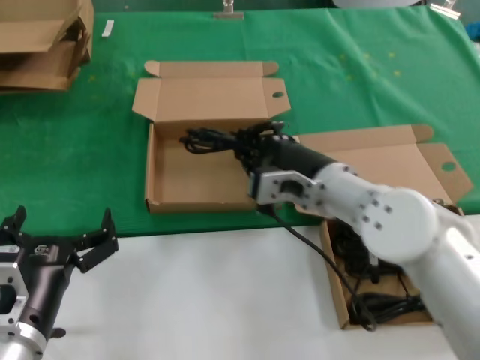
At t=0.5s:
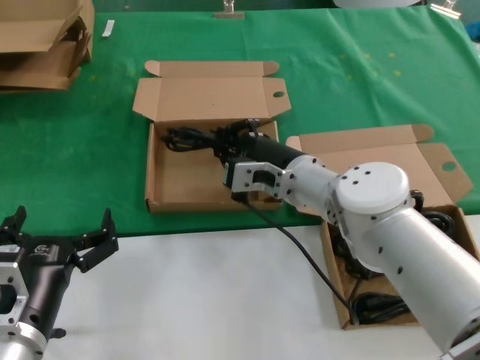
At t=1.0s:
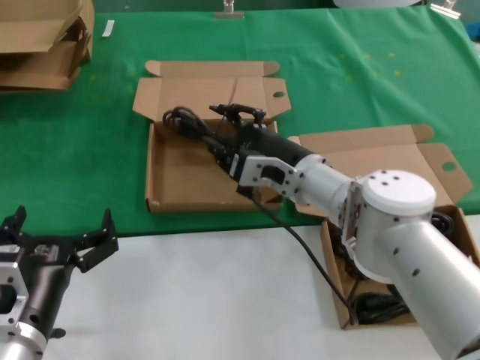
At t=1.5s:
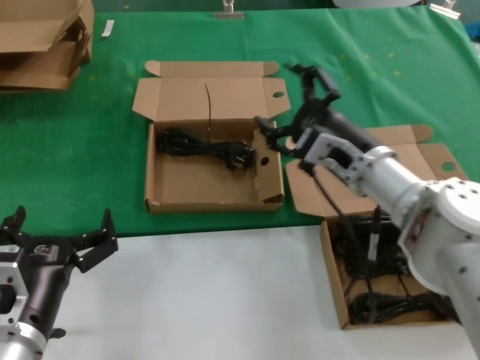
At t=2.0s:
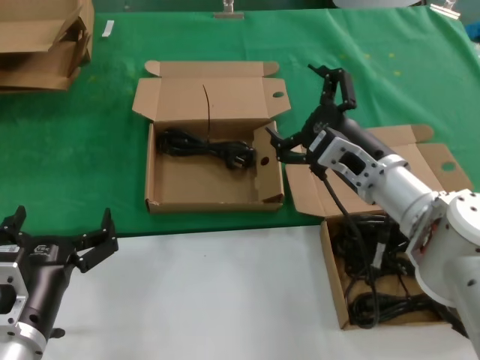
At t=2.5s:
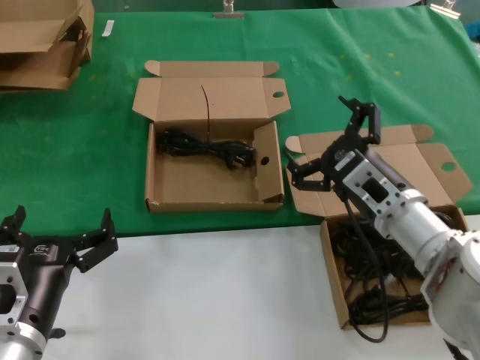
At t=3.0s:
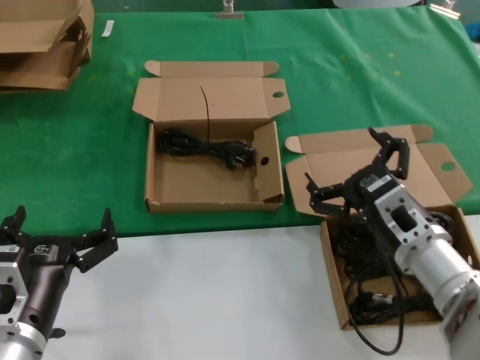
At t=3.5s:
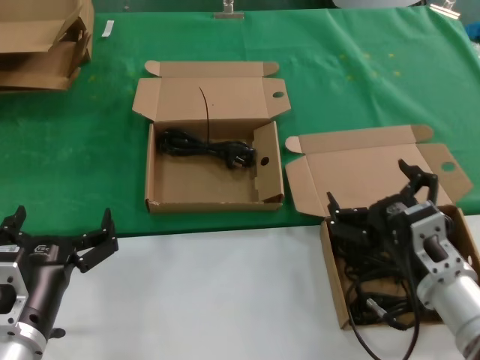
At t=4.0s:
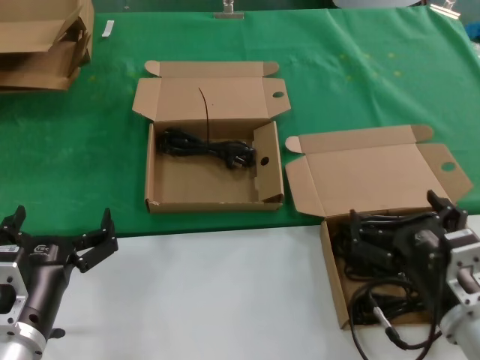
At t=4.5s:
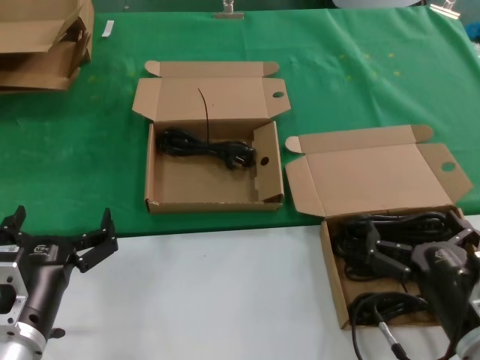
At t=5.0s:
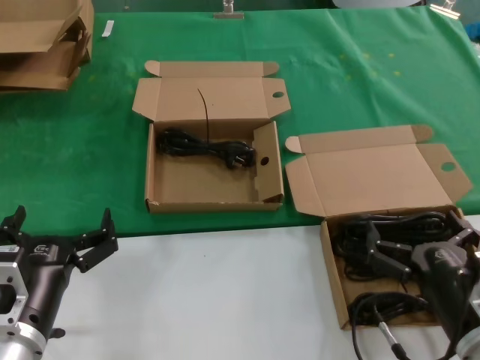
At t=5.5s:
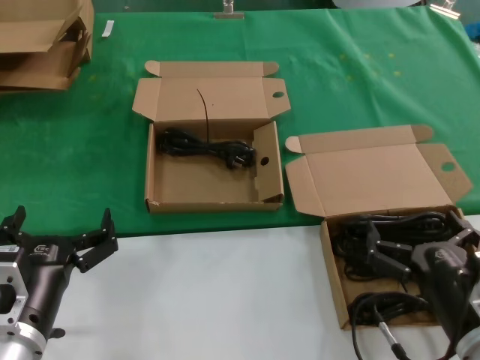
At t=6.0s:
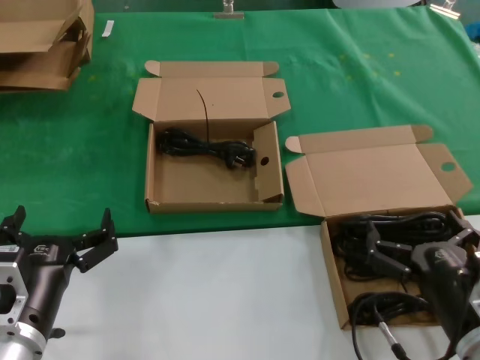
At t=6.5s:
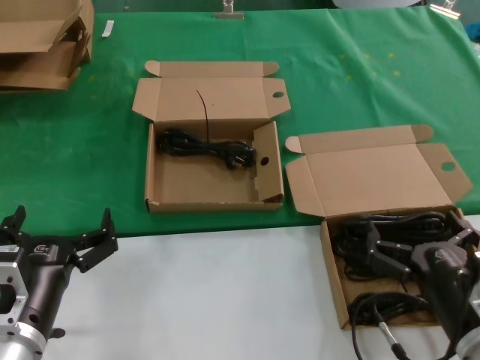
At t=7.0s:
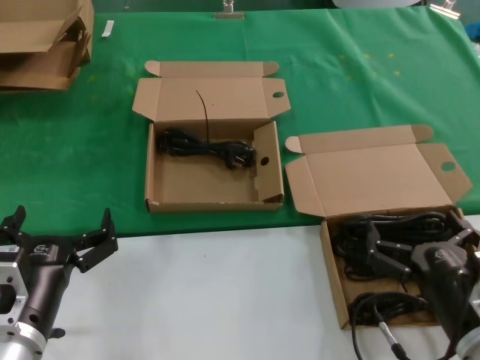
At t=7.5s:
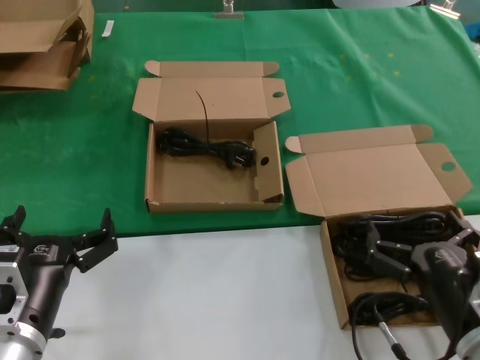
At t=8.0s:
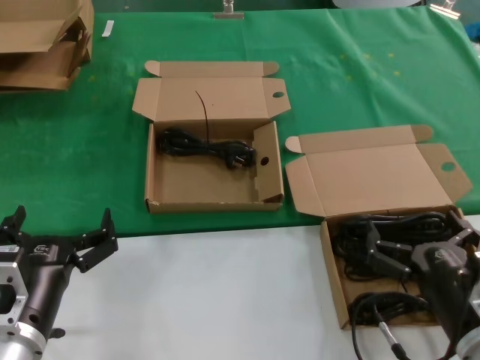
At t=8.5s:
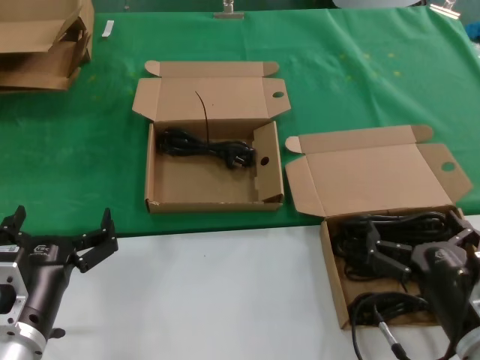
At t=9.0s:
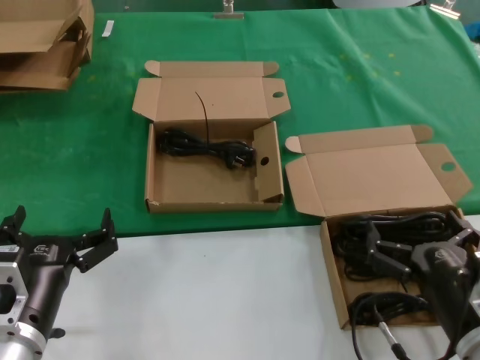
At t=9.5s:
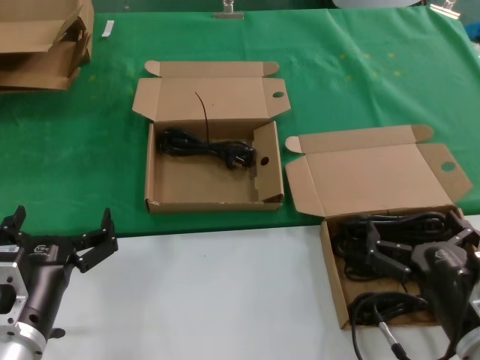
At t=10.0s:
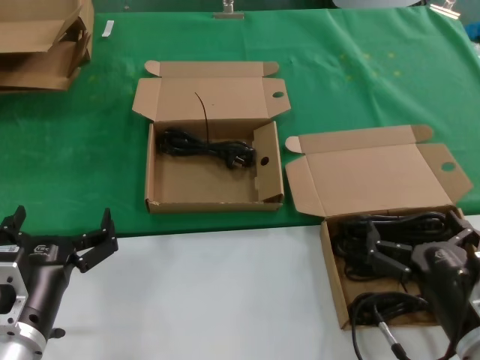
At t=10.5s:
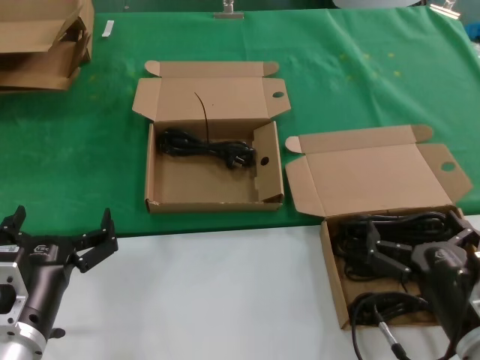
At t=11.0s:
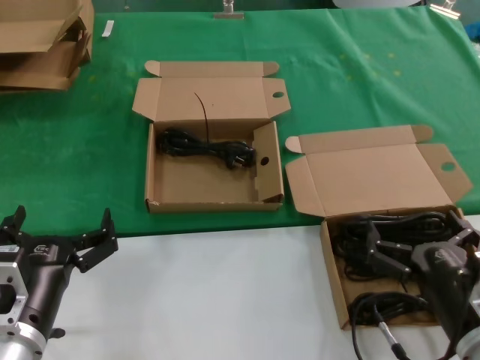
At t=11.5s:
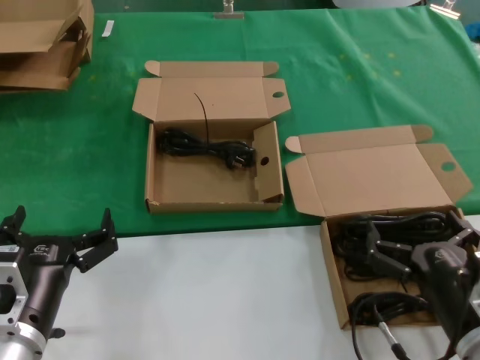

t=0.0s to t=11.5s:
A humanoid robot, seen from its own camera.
Task of the whole recording: take the parts from the box containing them and put them into an empty box.
t=0.0s to t=2.0s: The right hand goes approximately 5 cm to the right.
t=2.0s to t=4.0s: The right hand travels backward and downward by some 20 cm.
t=4.0s to t=6.0s: The hands move only a little.
t=6.0s to t=11.5s: Both hands stay put.

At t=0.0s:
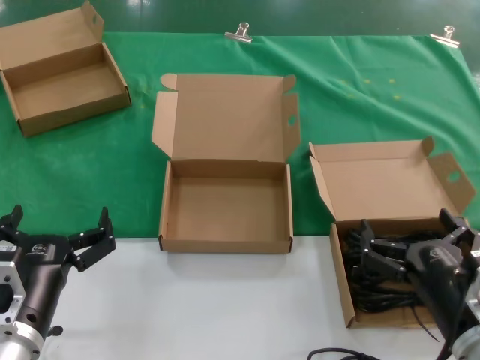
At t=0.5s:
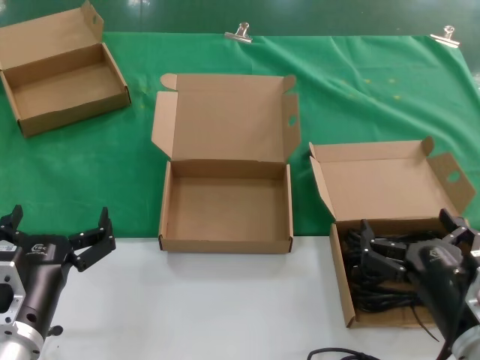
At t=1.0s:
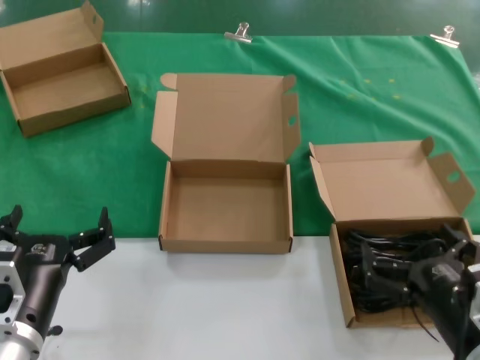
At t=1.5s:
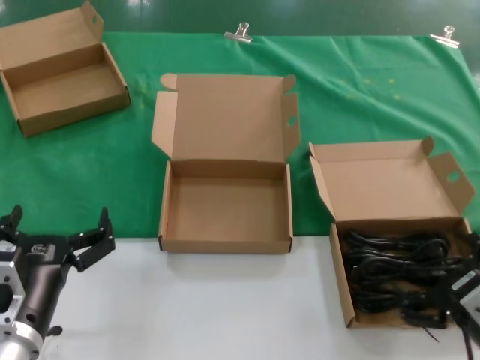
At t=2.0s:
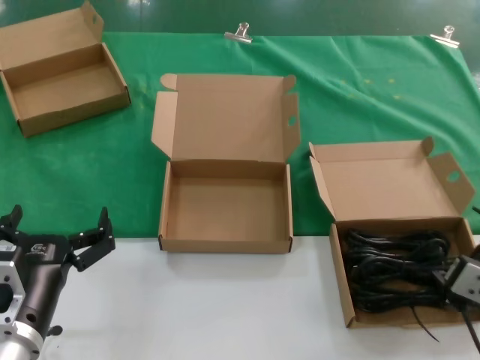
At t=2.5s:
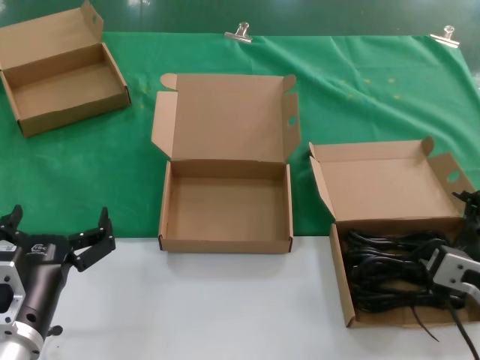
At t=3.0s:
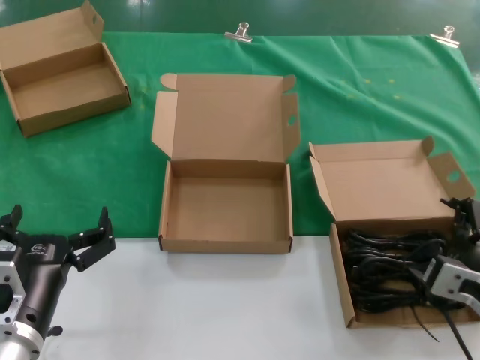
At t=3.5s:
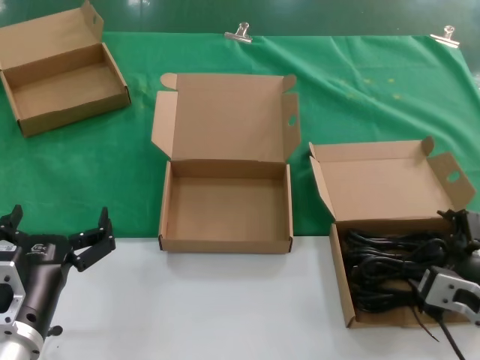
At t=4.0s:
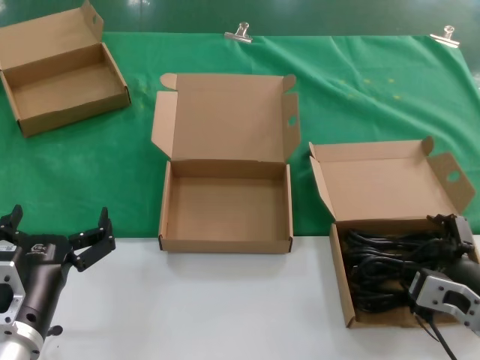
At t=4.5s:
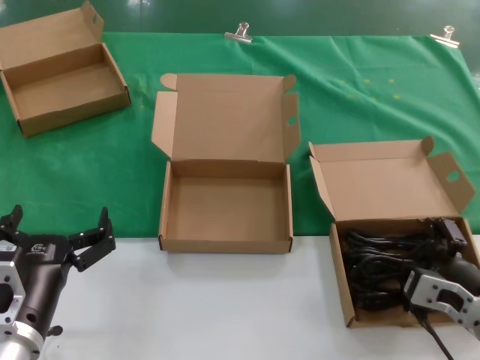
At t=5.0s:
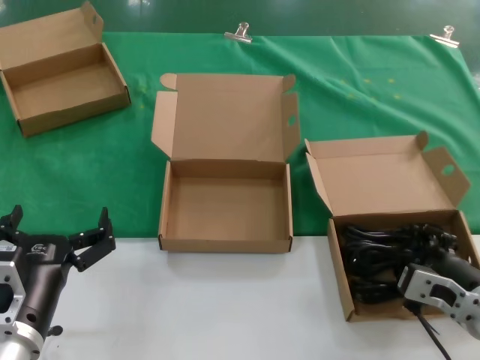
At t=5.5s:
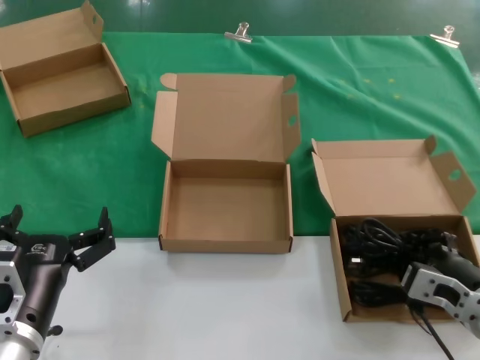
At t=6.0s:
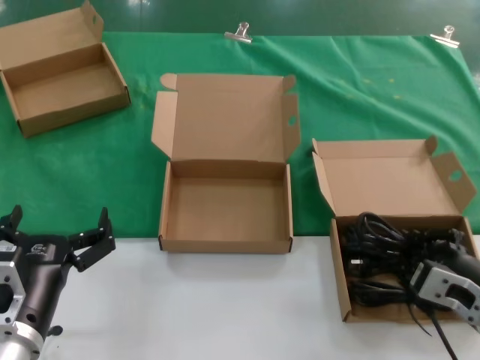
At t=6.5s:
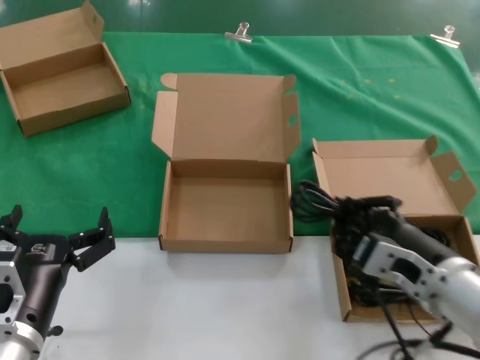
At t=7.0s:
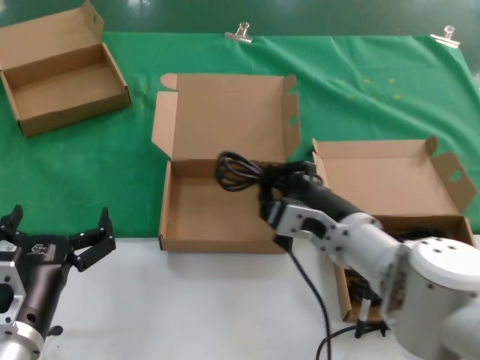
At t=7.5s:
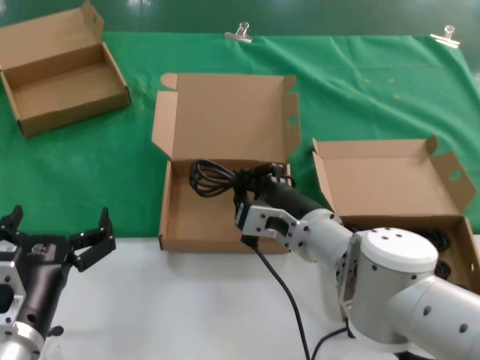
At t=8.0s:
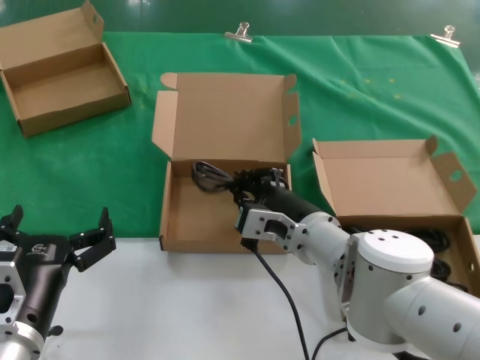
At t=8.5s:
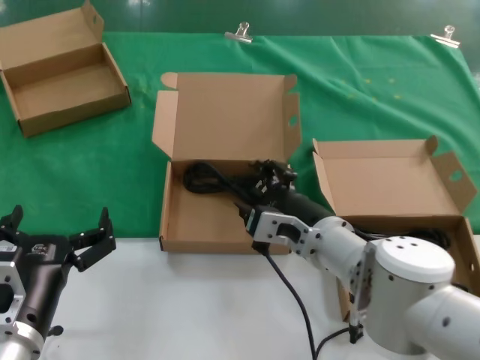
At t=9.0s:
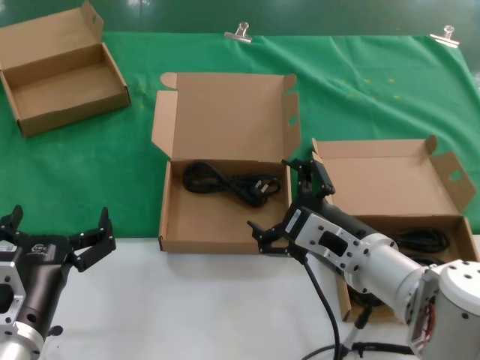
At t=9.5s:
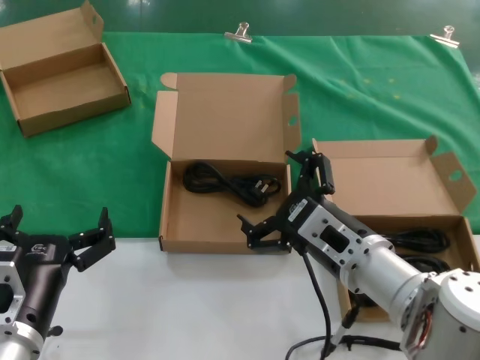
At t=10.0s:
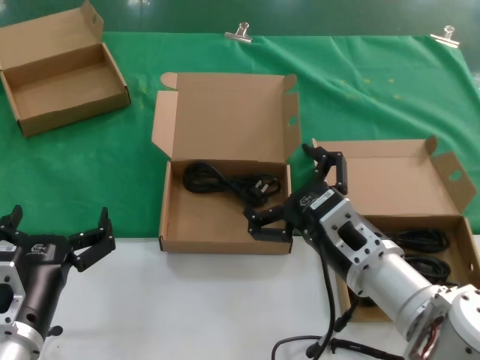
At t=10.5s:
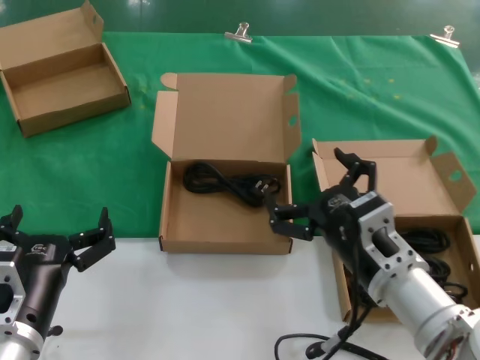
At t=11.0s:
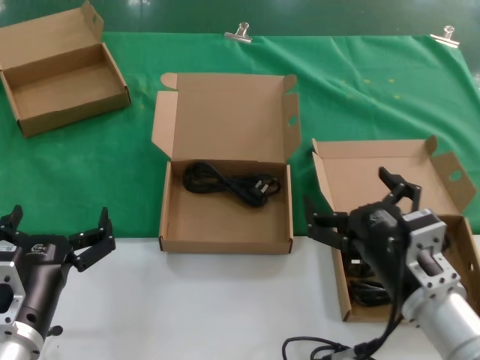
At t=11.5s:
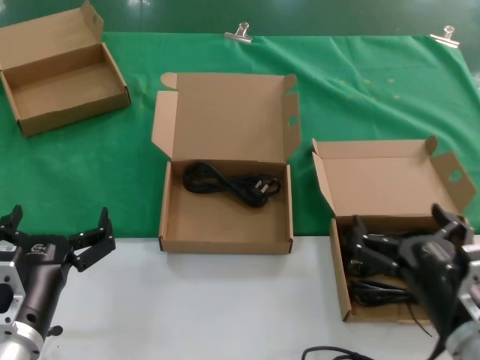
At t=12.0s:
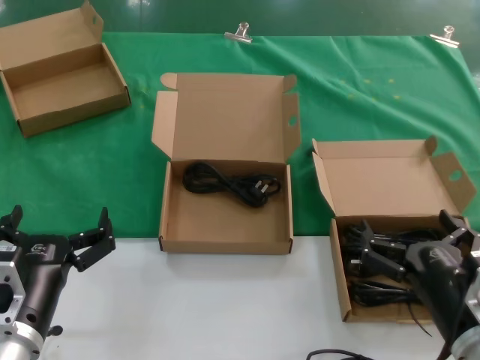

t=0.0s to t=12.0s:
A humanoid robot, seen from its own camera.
Task of the whole recording: take the parts from the box containing them and put them into an empty box.
Step, t=0.0s to t=5.0s: Grasp the data cable.
Step, t=5.5s to t=8.0s: Place the data cable in the another box.
t=0.0s to t=2.0s: The right hand shifts some 5 cm to the right.
t=2.0s to t=4.0s: The hands make only small movements.
t=4.0s to t=6.0s: The hands move only a little.
t=6.0s to t=8.0s: The right hand shifts approximately 20 cm to the left and forward.
t=8.0s to t=10.0s: The right hand is displaced backward and to the right by roughly 10 cm.
t=10.0s to t=12.0s: The right hand heads to the right, backward and downward, covering about 15 cm.

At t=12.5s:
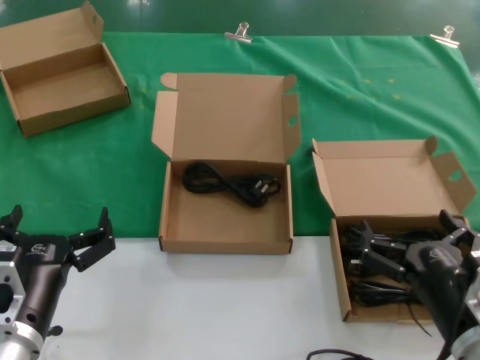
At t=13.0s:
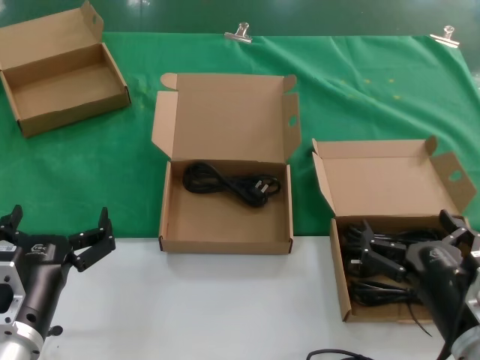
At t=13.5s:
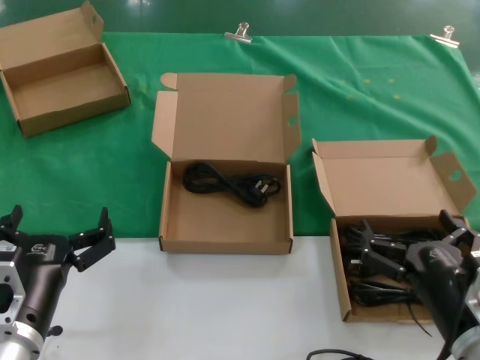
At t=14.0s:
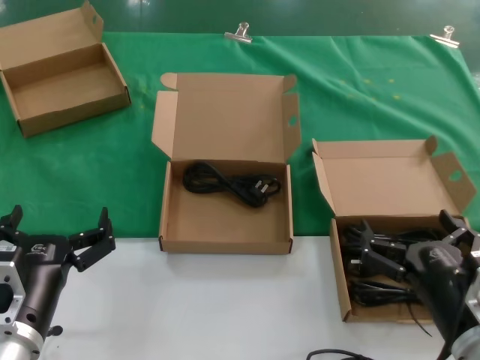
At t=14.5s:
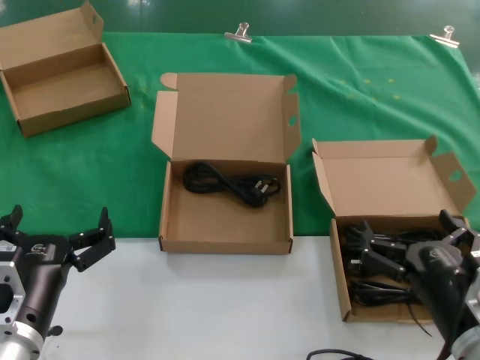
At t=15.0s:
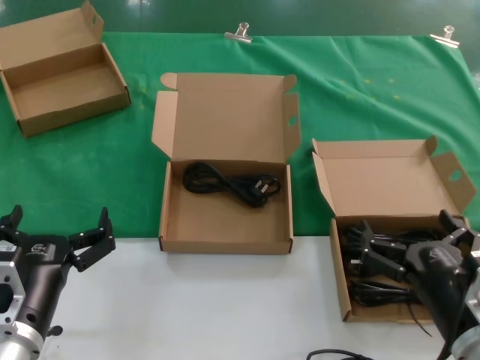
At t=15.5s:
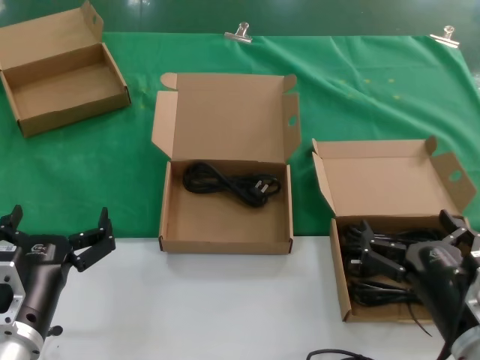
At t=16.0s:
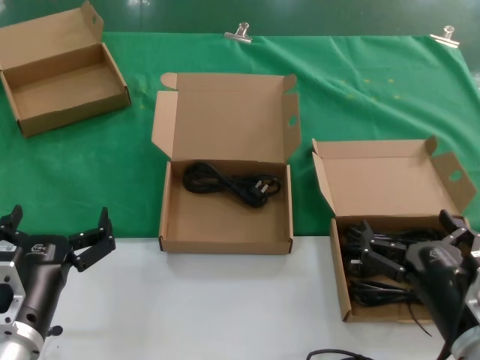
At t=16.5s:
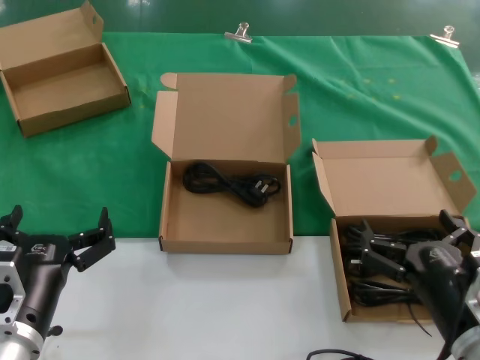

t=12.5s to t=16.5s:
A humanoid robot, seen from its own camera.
Task of the whole recording: take the parts from the box containing them and put them into an empty box.
t=12.5s to t=16.5s: Both hands stay about where they are.
